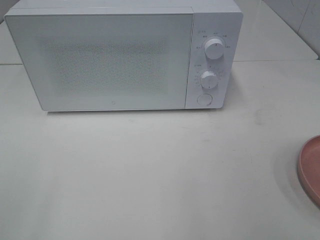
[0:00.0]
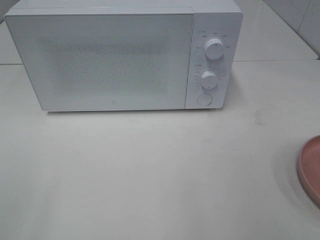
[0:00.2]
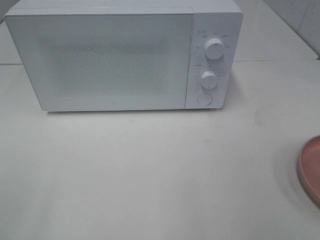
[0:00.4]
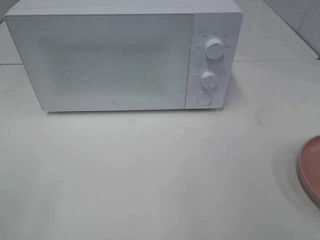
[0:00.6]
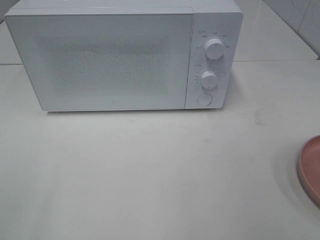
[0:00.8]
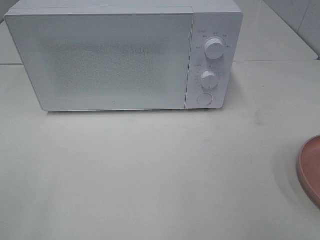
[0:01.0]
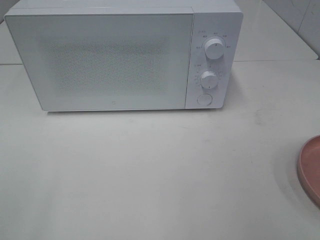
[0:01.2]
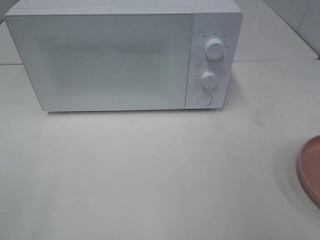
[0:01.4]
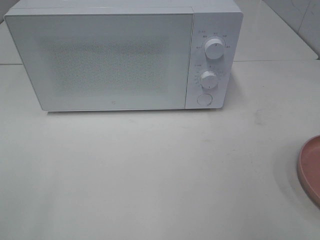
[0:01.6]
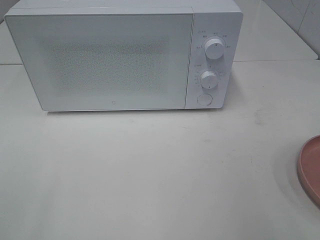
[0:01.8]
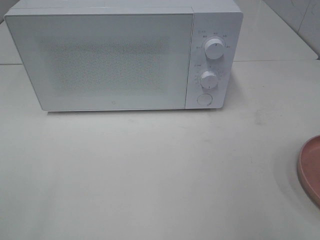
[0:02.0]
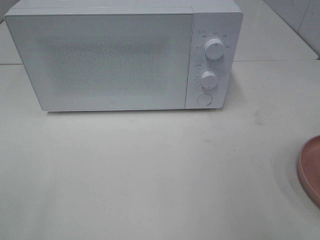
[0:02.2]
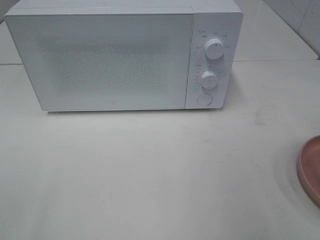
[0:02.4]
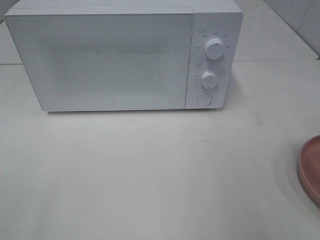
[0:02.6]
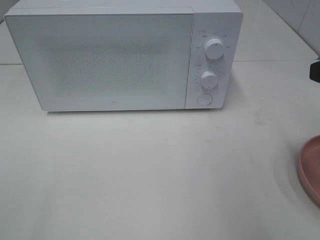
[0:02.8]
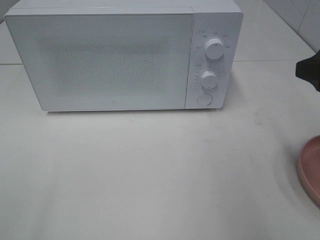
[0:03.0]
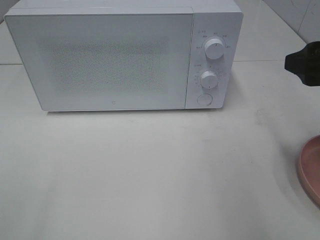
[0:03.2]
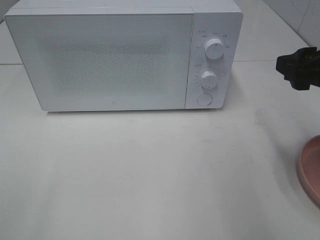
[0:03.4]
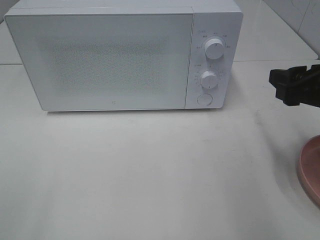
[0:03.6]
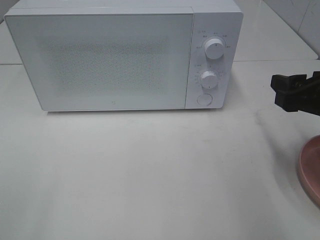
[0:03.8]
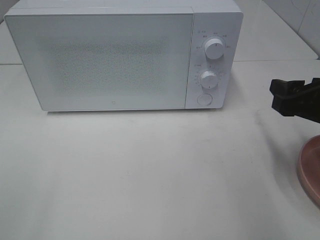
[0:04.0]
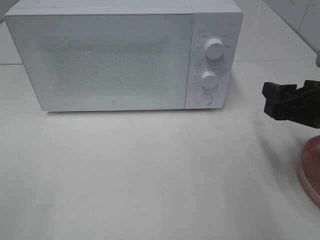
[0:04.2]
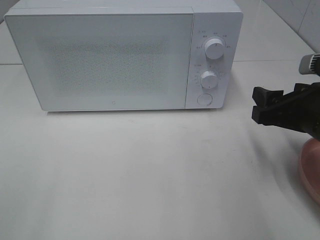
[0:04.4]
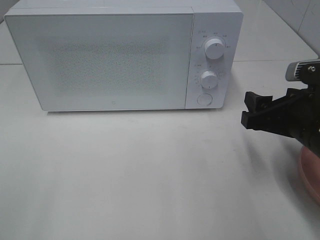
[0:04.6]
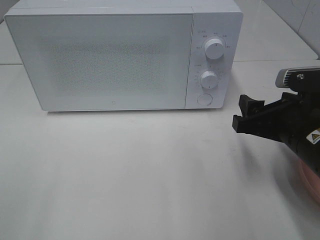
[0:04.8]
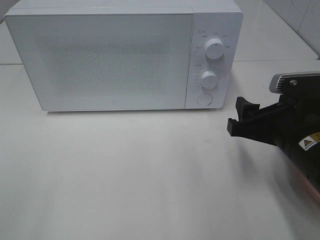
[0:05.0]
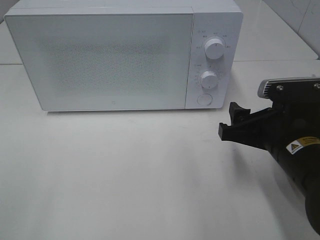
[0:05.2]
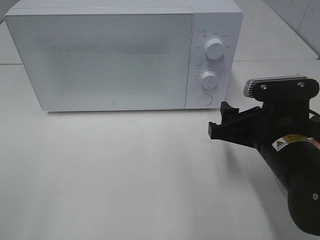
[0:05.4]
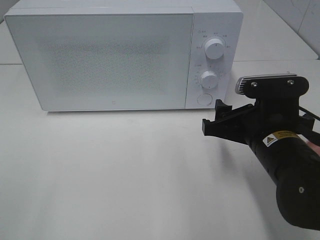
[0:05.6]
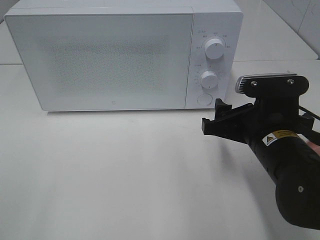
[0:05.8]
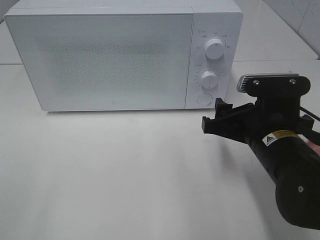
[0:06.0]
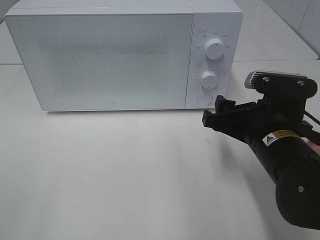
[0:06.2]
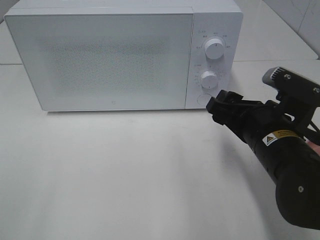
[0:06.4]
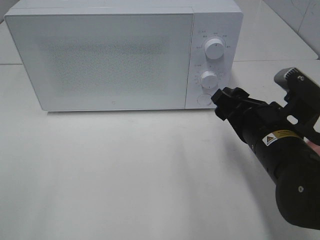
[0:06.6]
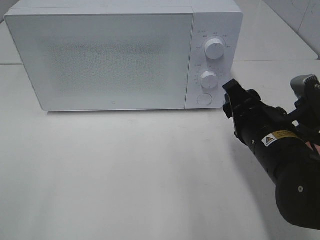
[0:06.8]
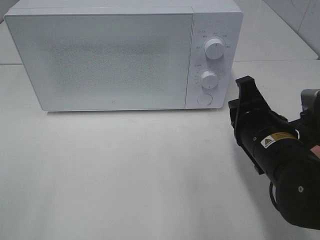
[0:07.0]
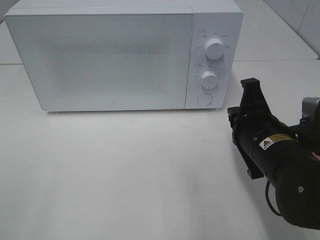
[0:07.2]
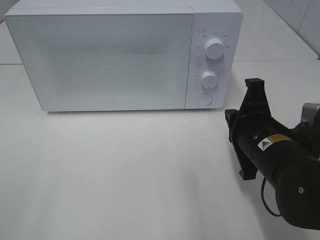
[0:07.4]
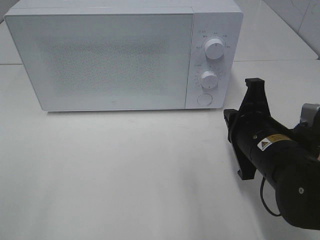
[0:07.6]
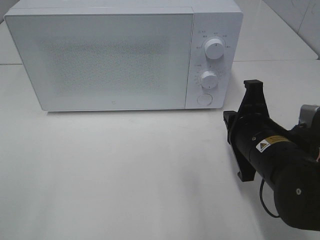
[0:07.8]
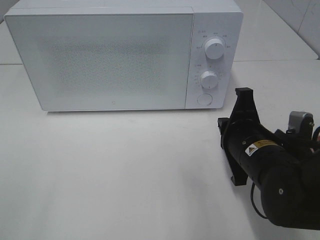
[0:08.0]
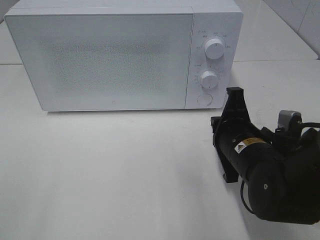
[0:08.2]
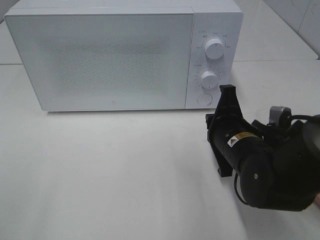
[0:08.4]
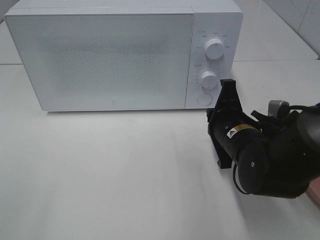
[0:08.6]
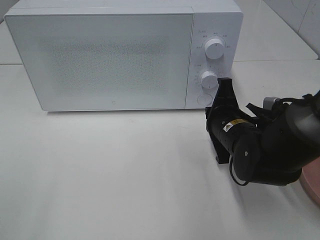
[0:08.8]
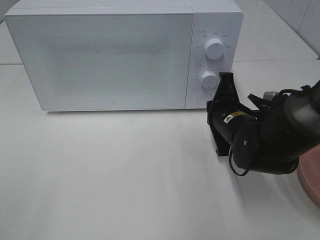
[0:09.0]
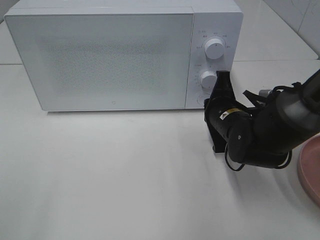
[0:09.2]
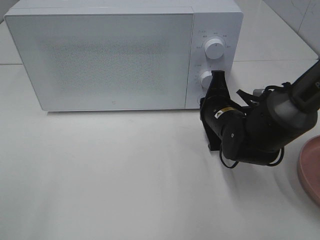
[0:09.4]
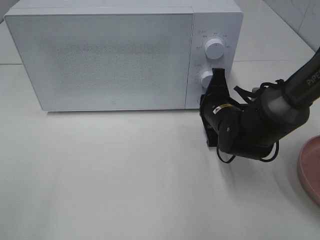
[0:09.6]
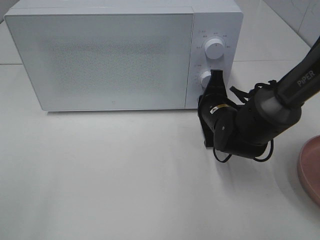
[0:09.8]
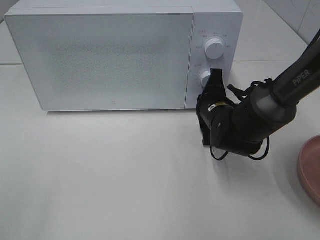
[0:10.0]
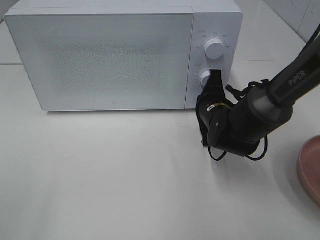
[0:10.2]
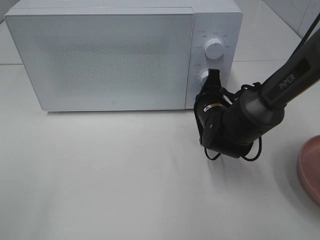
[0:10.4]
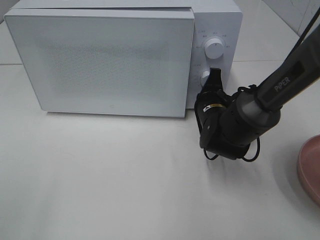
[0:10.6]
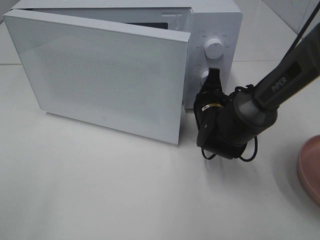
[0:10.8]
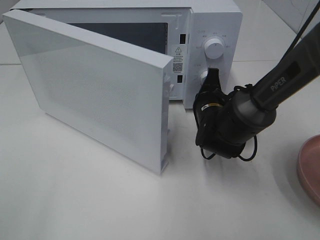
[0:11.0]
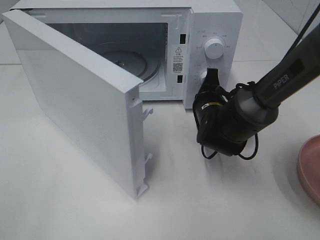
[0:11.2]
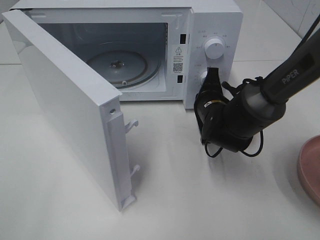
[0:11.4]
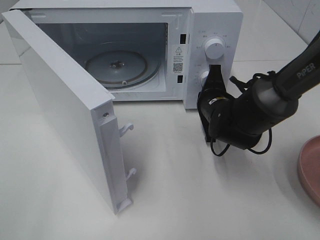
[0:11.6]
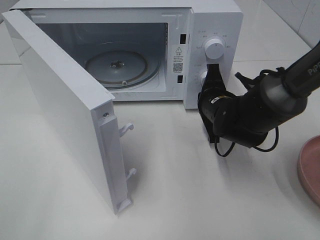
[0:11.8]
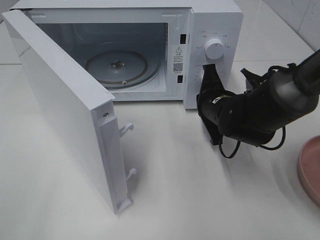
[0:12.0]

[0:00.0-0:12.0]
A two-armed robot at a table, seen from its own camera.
Task of the whole recording: Heat the burger.
0:01.6 to 0:03.0: The right gripper shifts roughly 15 cm forward.
0:03.0 to 0:04.4: The right gripper heads downward, covering approximately 10 cm.
0:04.4 to 0:06.0: The right gripper is displaced to the left by some 5 cm.
0:06.0 to 0:07.6: The right gripper closes.
0:07.6 to 0:09.0: The right gripper travels forward by about 10 cm.
0:09.0 to 0:10.4: The right gripper shifts approximately 5 cm forward.

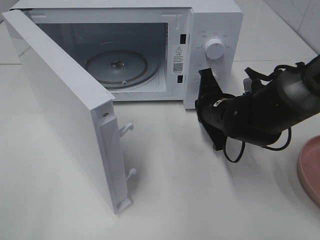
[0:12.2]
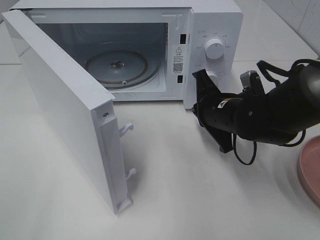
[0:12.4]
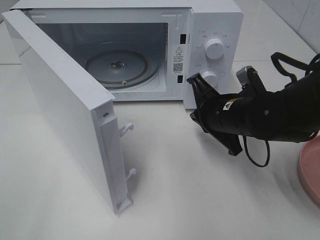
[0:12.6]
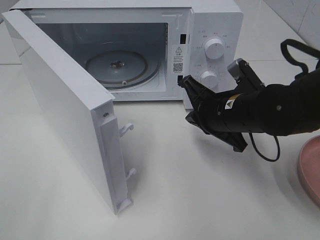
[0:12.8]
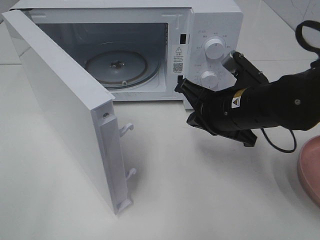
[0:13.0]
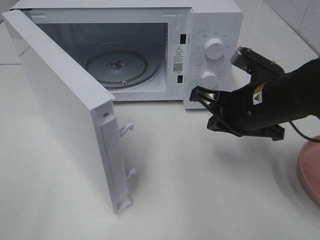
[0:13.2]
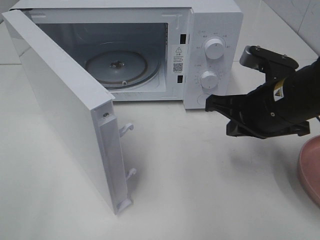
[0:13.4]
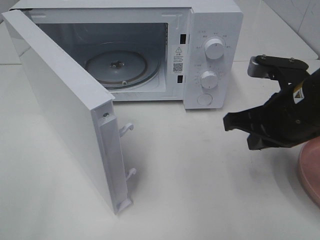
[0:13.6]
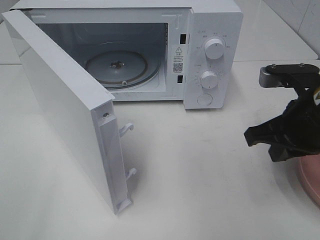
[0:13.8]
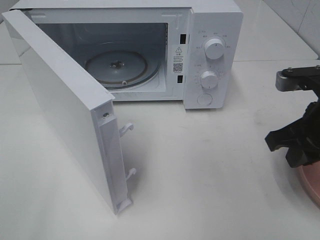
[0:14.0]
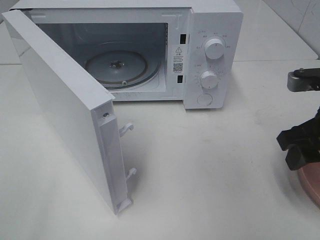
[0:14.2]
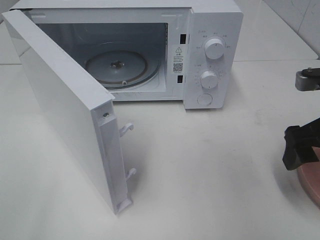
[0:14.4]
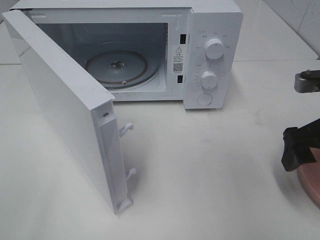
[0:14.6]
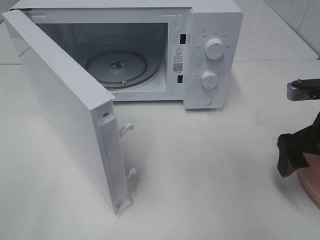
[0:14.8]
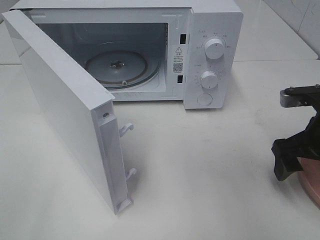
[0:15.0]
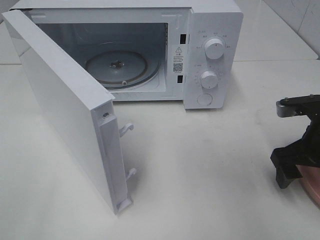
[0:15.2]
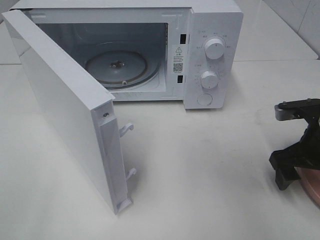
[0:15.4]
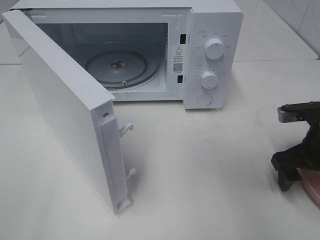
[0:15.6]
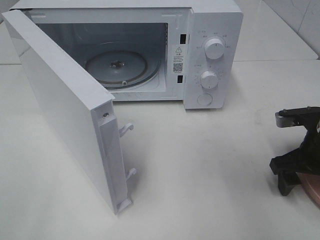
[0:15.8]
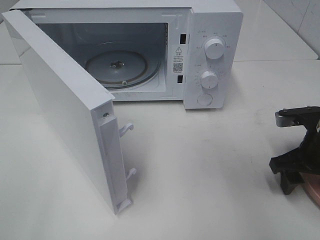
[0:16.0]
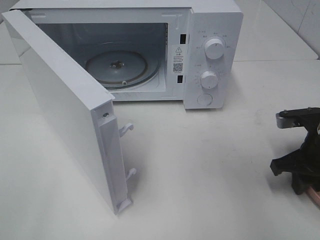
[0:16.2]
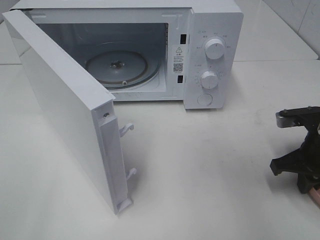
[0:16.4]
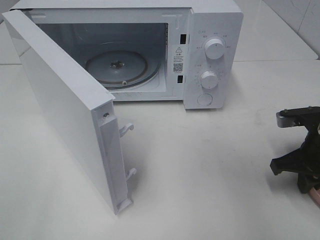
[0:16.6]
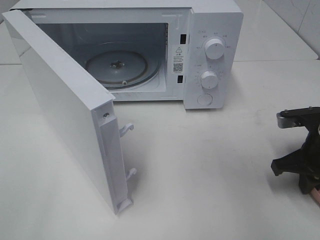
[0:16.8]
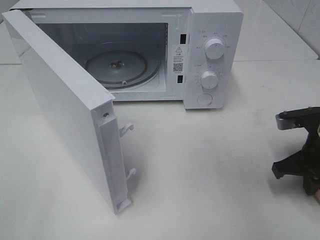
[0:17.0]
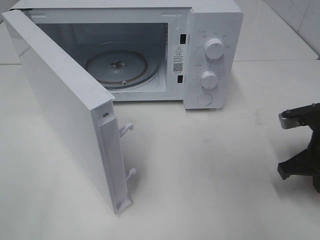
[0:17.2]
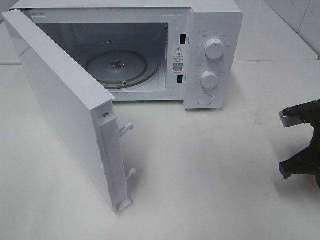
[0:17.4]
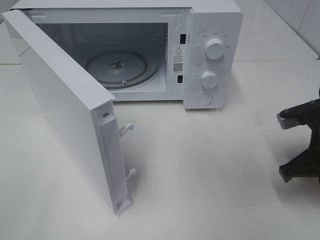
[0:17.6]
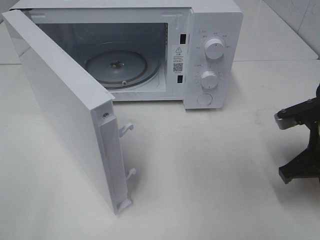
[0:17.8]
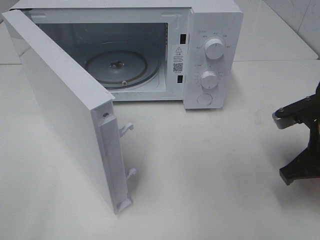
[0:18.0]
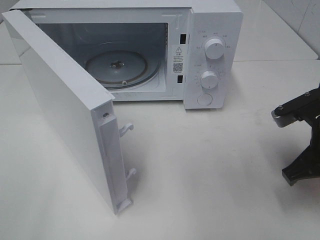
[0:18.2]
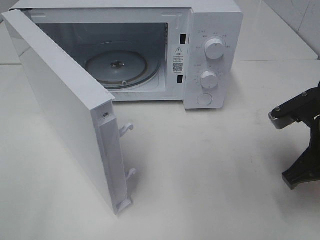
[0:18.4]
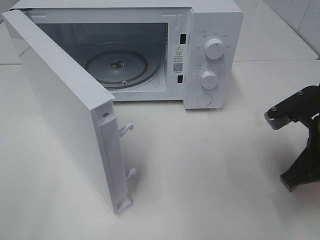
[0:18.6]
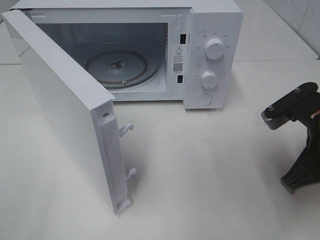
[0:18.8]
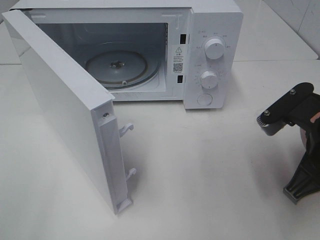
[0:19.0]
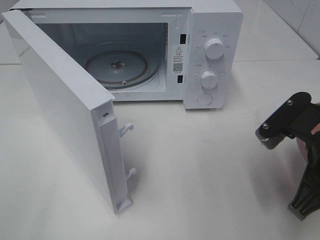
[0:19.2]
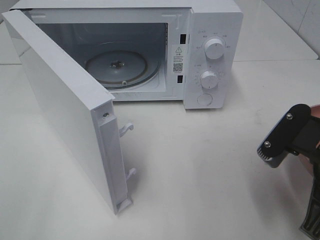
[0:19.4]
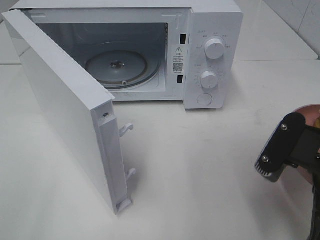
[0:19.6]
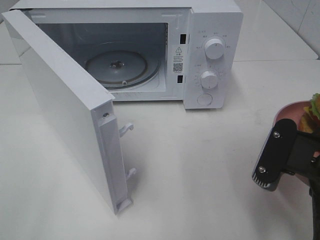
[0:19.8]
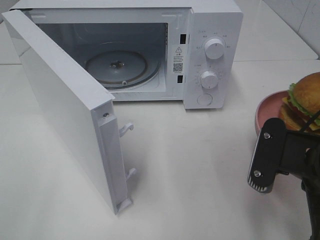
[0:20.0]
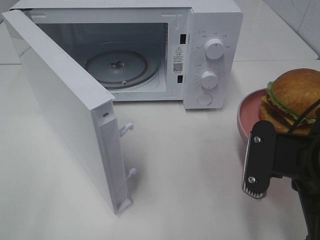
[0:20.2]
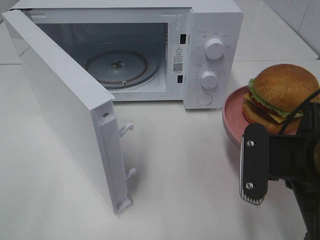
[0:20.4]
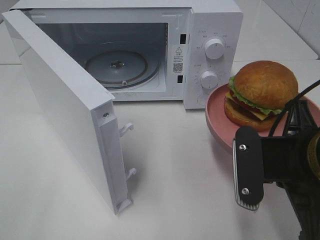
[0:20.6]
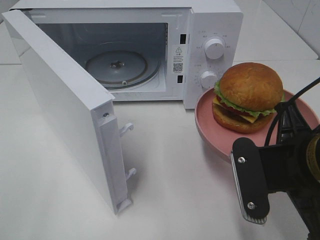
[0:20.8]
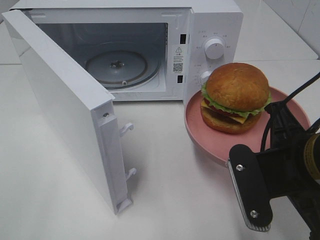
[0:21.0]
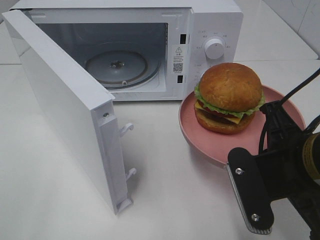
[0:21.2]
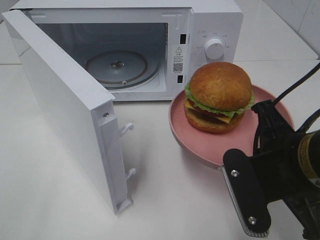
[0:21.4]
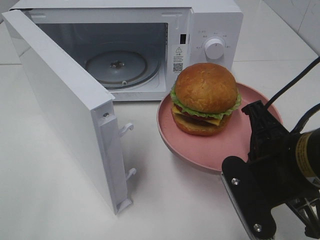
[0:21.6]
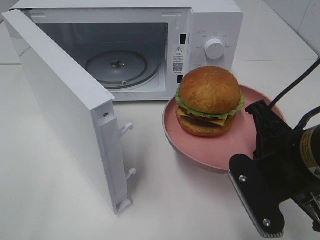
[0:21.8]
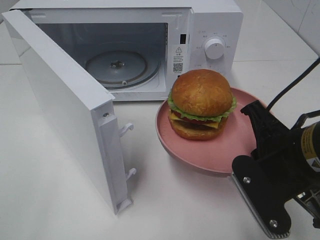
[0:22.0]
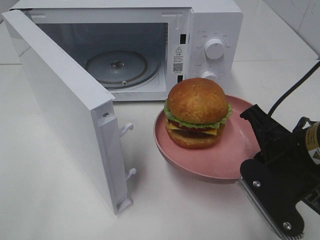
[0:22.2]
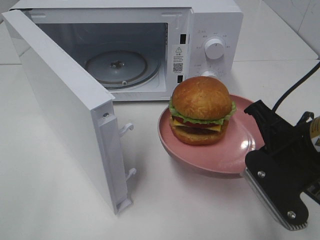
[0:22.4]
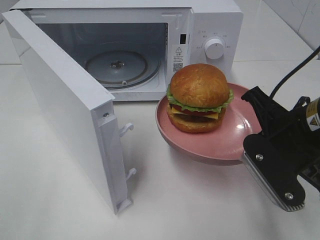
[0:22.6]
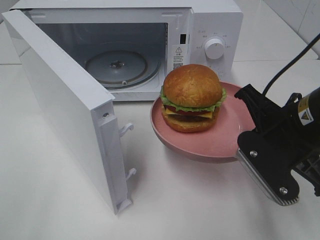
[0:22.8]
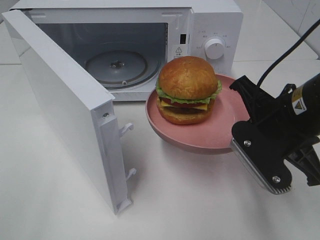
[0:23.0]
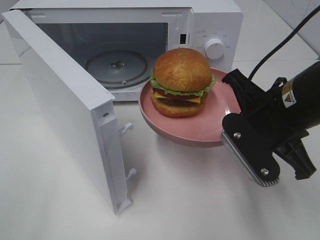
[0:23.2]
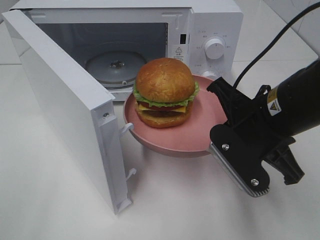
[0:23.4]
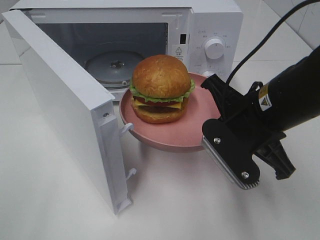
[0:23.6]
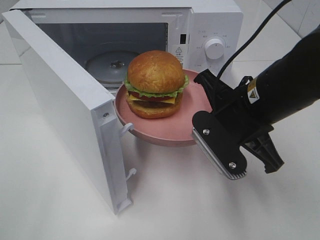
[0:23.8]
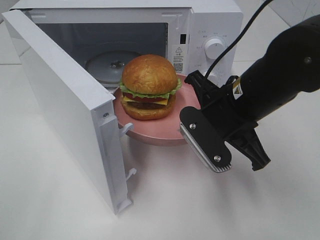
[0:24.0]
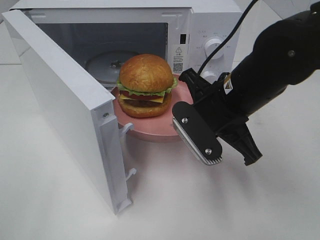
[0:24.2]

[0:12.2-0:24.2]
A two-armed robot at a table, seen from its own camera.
Task of the whole recording: Heat the burger.
Step, 0:12.2 to 0:17.4: Right hand: grab the plate with the hamburger.
0:12.2 to 0:13.8: The right gripper moves backward, upward and to the right, some 15 cm.
0:13.8 to 0:15.2: The right gripper travels downward and to the right by approximately 10 cm, and opens up.
0:15.2 to 0:16.6: The right gripper closes.
0:16.6 to 0:18.2: The right gripper is displaced upward by approximately 5 cm.
0:18.2 to 0:19.8: The right gripper is displaced backward by about 10 cm.
0:21.2 to 0:22.6: The right gripper ends up roughly 5 cm from where it was.
0:22.6 to 0:24.2: The right gripper travels to the left and forward by about 10 cm.
